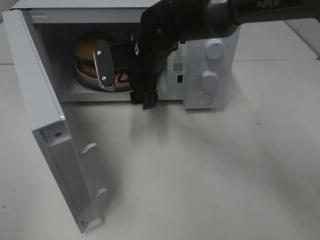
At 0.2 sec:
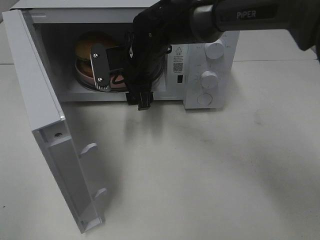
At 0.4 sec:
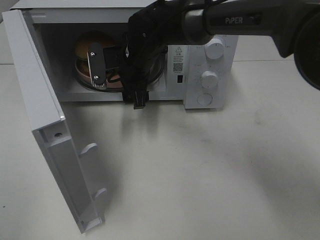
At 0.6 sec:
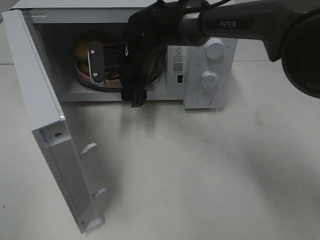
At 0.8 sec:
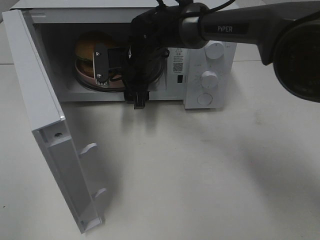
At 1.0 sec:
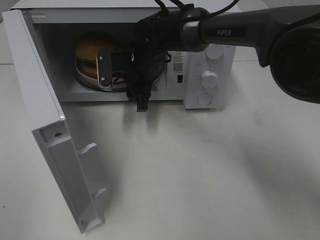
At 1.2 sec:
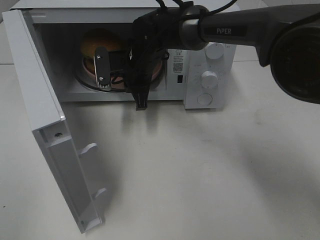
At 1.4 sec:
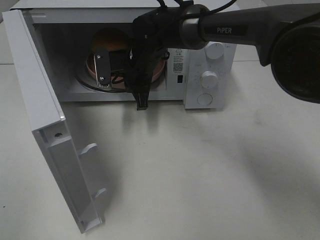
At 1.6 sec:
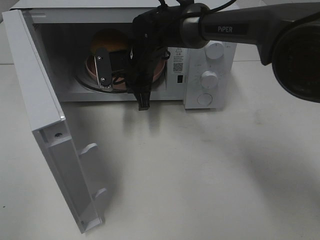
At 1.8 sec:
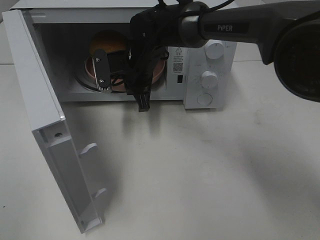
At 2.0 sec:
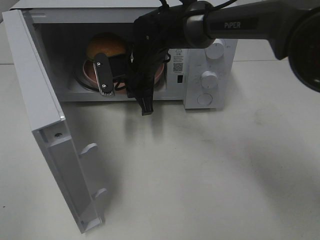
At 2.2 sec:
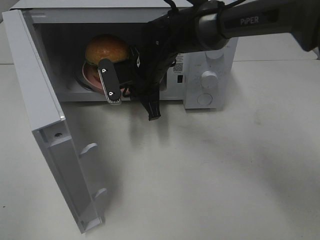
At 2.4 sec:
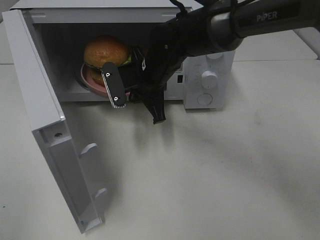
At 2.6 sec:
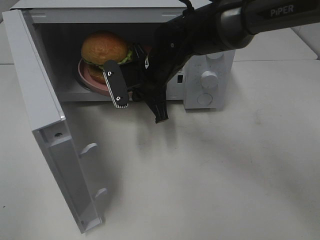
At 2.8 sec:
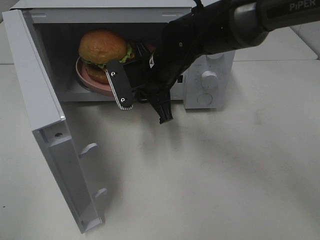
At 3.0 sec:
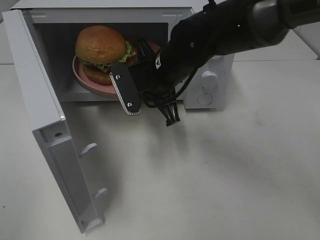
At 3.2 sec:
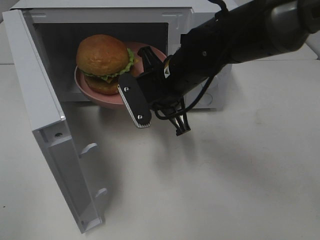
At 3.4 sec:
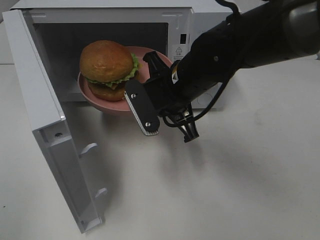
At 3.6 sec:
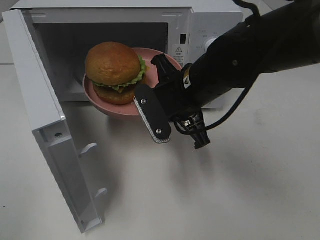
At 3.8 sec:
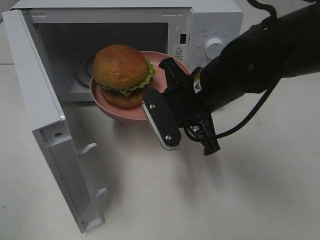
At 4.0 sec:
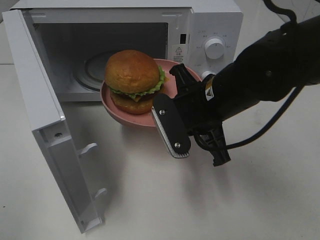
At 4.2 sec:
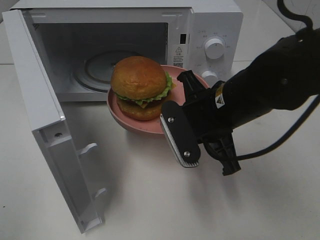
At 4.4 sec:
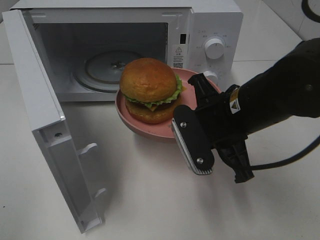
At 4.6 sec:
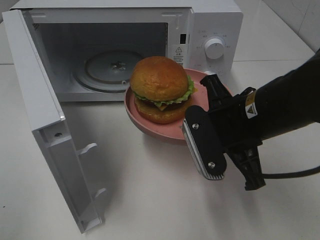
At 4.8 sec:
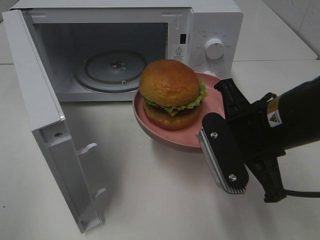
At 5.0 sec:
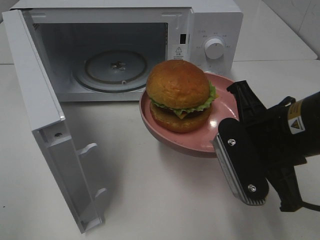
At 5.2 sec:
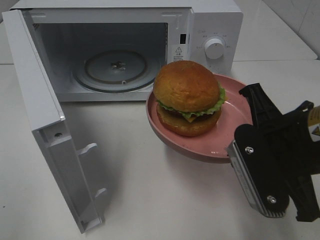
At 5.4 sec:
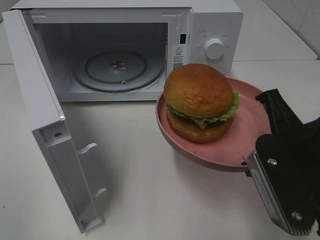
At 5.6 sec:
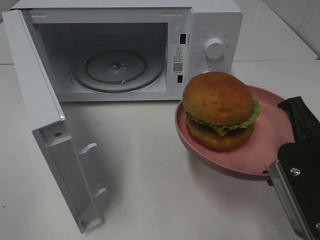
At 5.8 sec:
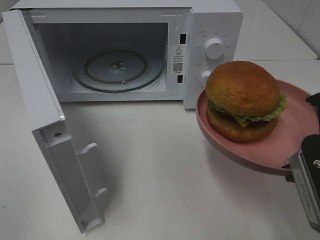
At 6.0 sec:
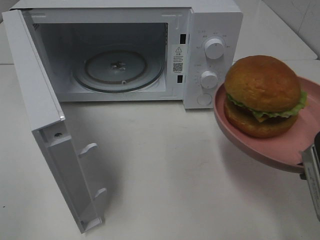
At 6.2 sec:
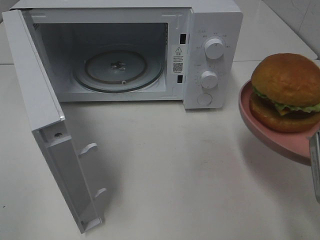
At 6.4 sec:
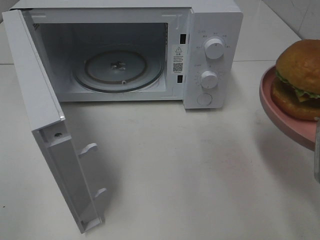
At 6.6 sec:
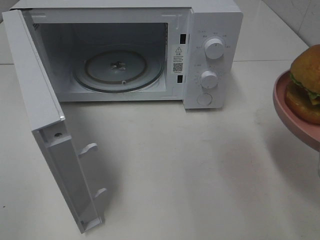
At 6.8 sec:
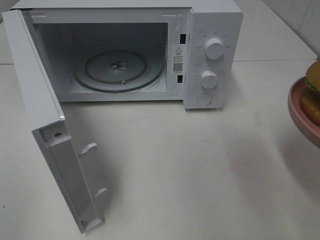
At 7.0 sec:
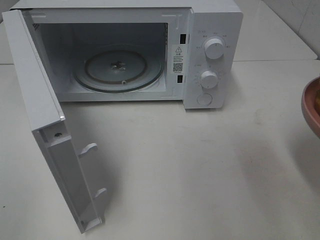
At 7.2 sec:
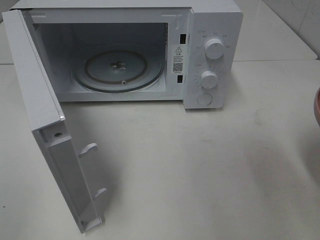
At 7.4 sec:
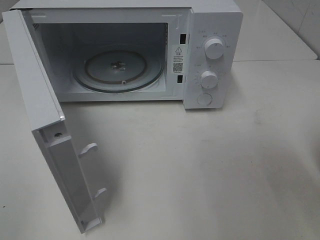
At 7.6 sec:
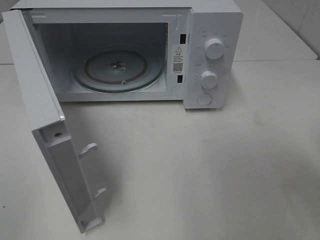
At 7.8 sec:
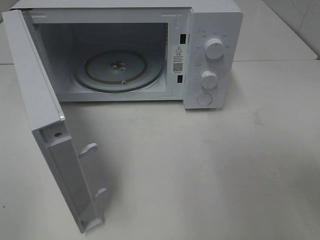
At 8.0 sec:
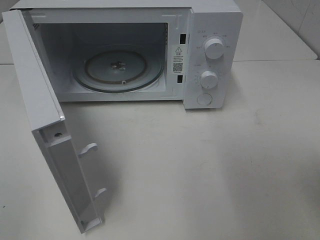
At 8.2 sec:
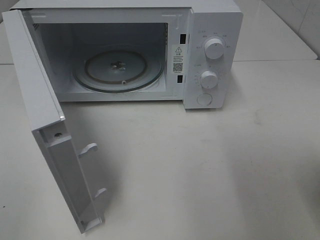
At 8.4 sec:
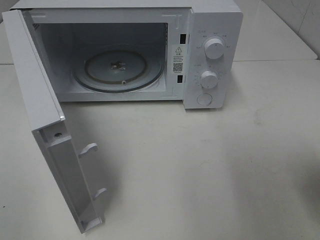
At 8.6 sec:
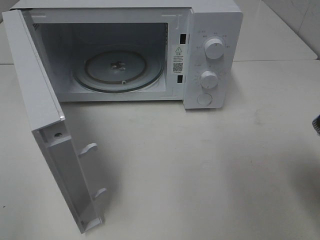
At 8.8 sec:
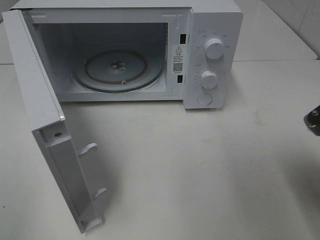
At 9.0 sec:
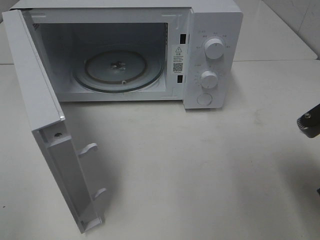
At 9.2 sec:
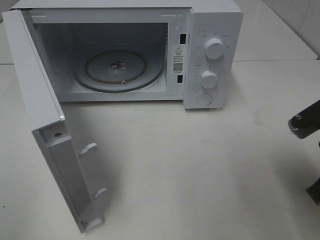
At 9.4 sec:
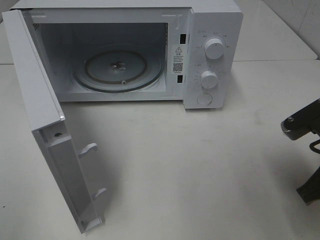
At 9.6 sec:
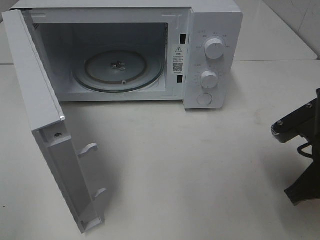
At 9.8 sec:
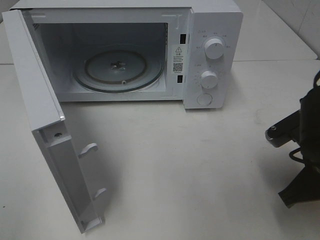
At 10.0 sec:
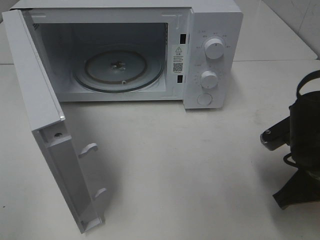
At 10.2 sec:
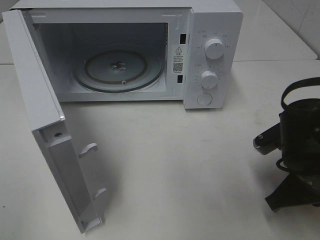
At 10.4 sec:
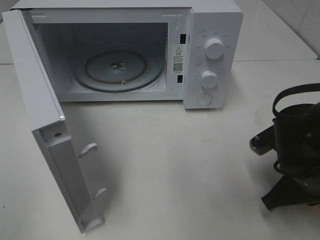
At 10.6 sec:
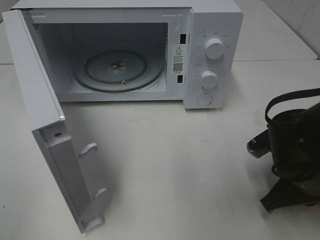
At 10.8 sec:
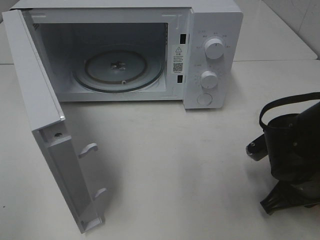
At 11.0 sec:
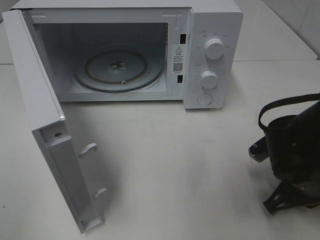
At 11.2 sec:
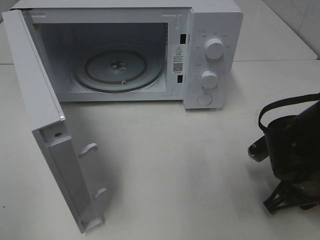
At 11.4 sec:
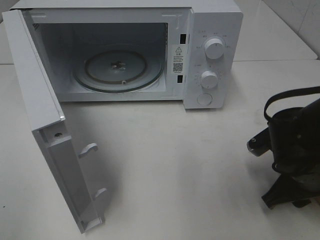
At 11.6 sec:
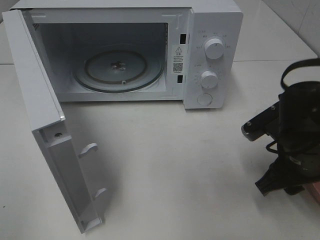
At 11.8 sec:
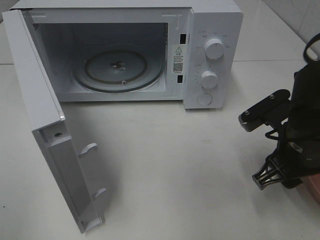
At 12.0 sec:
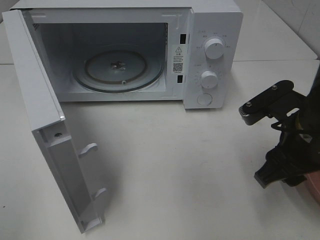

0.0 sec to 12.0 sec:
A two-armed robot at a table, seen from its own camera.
Task of the whole recording: Heat the burger.
Step, 1.4 sec to 11.4 sec: Right hand: place the plate on the table.
0.0 sec to 1.6 sec: The right gripper shifts by some 5 cm, and closes.
1.6 sec to 3.0 sec: The right gripper goes roughly 10 cm backward.
3.0 sec to 4.4 sec: The right gripper travels backward and to the right by approximately 15 cm.
4.4 sec to 6.0 sec: The right gripper travels backward and to the right by about 15 cm.
7.6 sec to 9.0 sec: The right gripper ends up approximately 5 cm from where it was.
9.0 sec to 10.4 sec: The right gripper goes roughly 10 cm downward.
10.4 sec to 12.0 sec: The right gripper moves upward, roughly 5 cm, and opens.

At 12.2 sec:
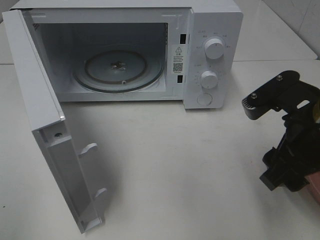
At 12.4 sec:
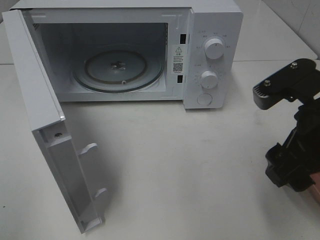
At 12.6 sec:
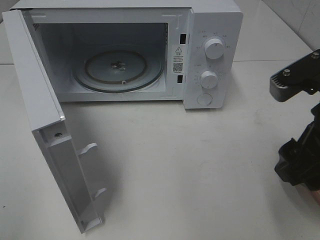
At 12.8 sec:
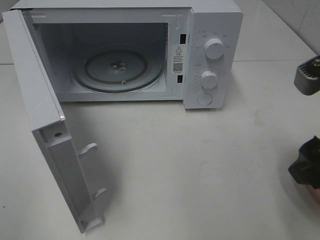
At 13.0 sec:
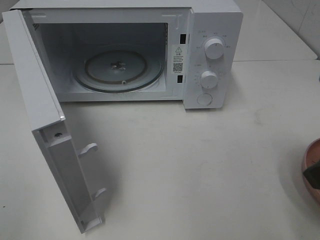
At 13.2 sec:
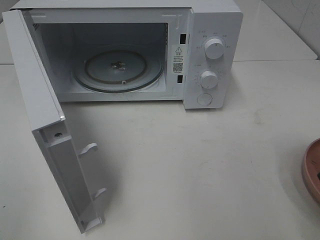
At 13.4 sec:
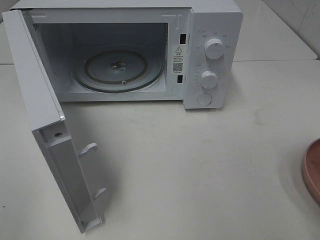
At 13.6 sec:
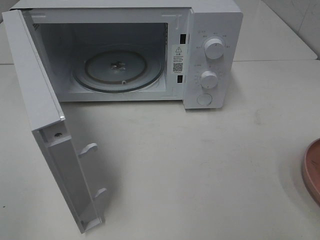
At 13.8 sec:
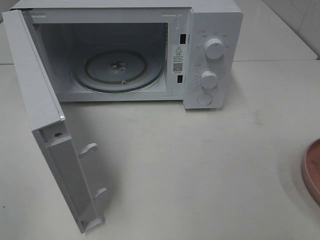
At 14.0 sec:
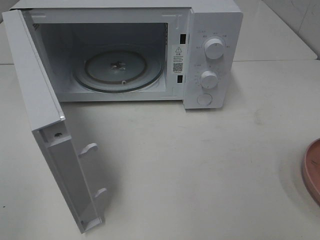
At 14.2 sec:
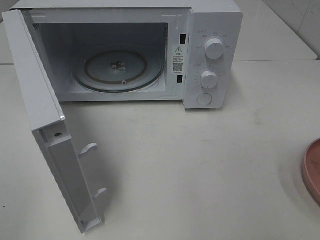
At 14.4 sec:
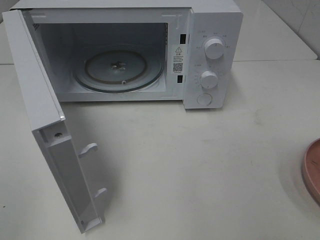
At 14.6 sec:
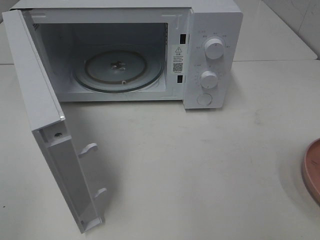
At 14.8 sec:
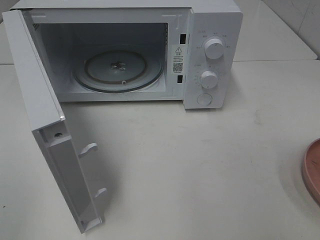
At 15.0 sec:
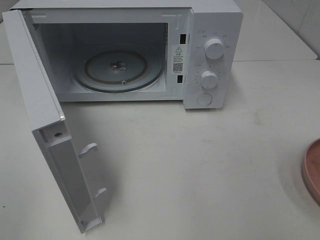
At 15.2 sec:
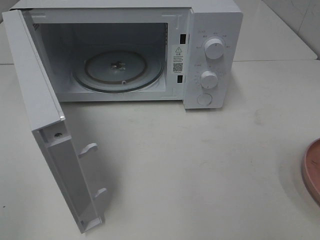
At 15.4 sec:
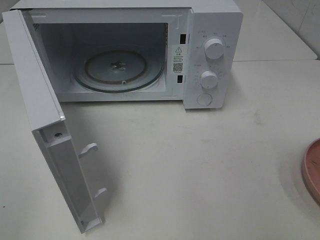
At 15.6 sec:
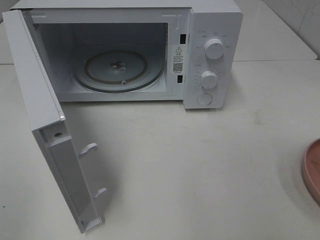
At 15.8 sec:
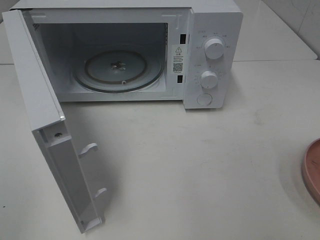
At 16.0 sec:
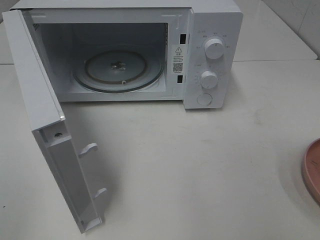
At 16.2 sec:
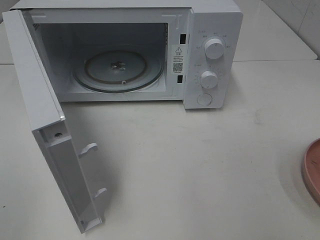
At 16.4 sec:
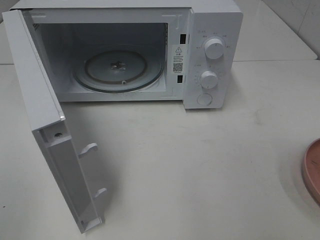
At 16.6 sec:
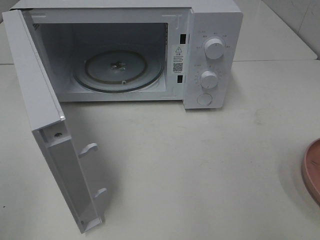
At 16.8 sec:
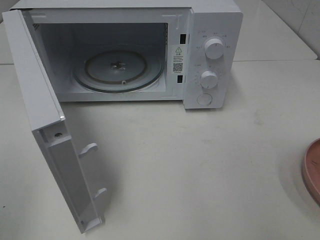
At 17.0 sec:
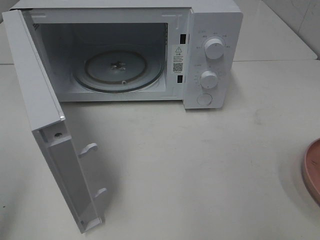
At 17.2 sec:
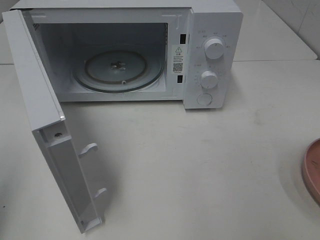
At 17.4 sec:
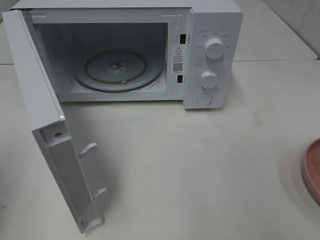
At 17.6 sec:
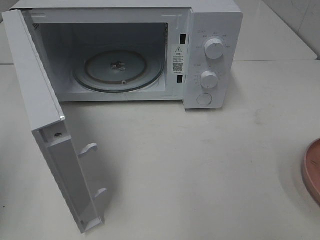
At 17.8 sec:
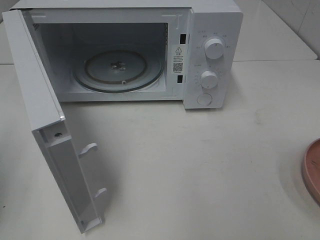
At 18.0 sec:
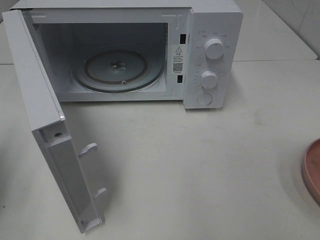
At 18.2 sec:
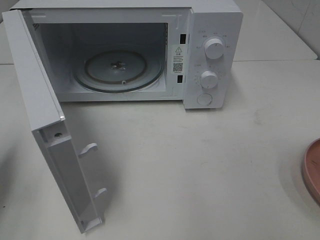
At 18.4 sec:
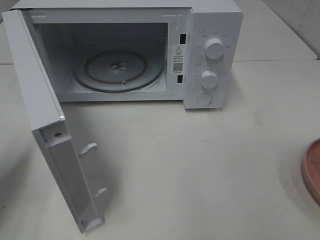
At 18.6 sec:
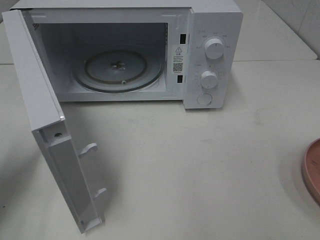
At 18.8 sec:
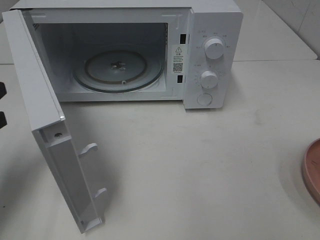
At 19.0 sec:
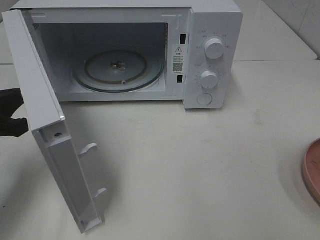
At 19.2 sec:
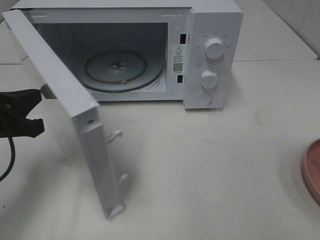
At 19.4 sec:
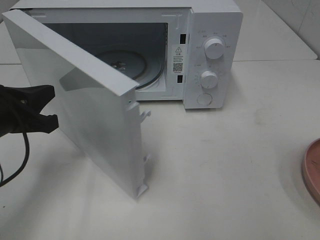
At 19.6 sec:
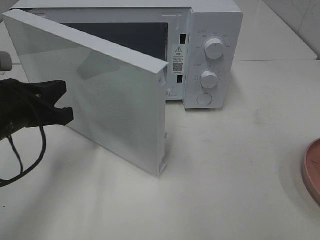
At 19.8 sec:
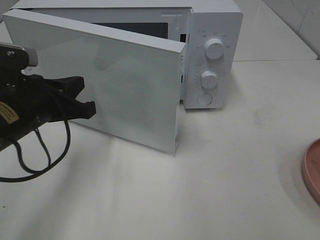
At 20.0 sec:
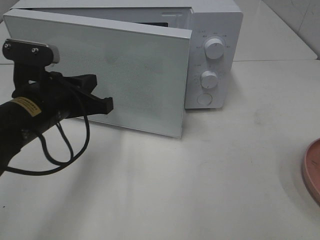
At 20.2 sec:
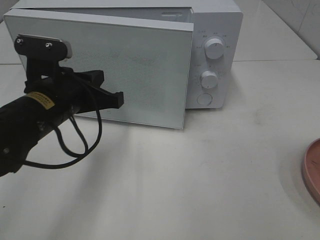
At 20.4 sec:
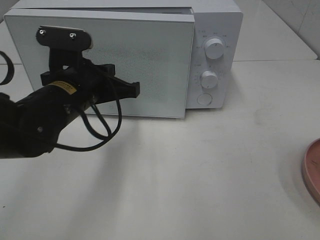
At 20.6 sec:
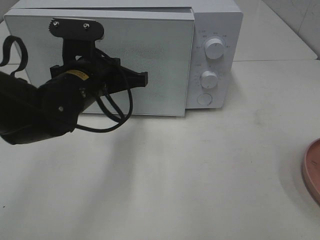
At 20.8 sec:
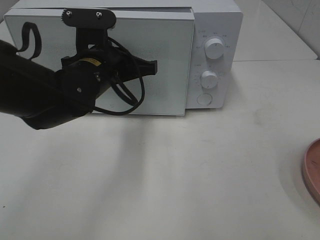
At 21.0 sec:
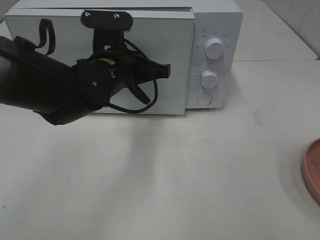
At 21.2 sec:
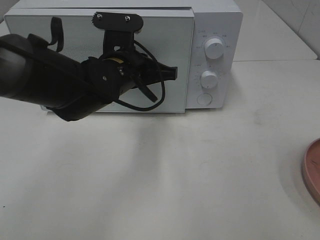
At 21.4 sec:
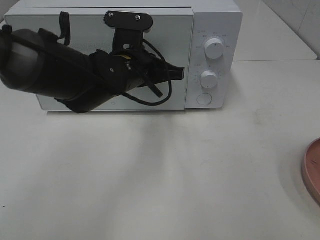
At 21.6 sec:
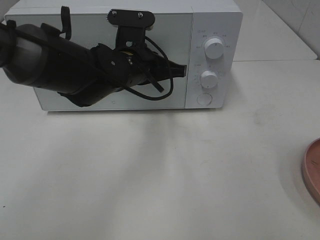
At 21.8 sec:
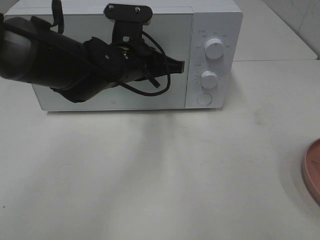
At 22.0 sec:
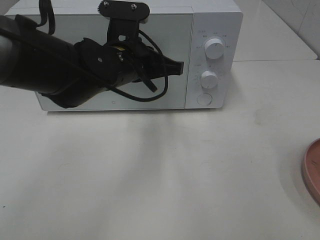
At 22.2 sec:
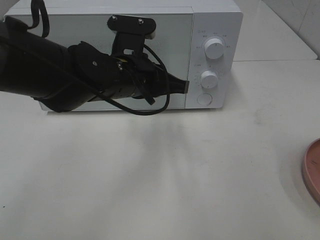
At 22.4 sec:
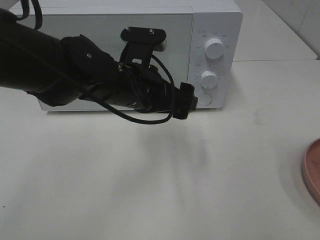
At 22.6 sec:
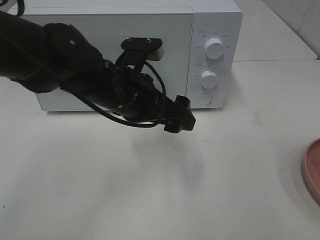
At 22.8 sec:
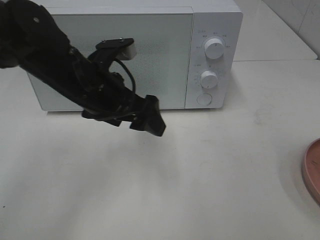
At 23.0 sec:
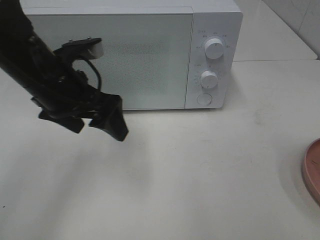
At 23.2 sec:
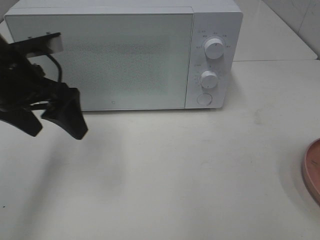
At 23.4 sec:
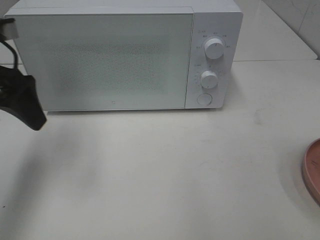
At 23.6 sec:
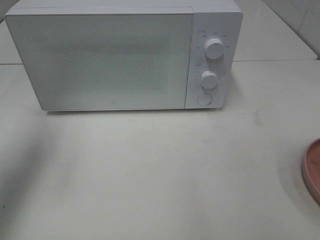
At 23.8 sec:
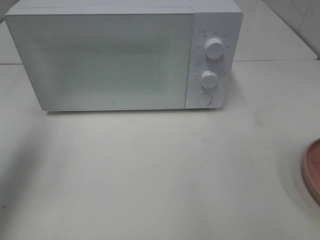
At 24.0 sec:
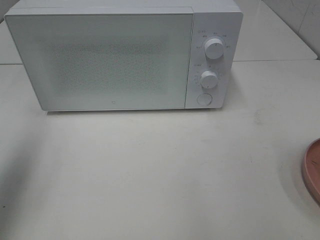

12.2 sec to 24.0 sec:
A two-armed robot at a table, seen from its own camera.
Task of the whole recording: Heat the burger.
Step, 12.2 sec to 22.2 sec: Left hand: close the microwave door.
12.2 sec to 13.6 sec: The right gripper is displaced backward, to the right and upward by roughly 15 cm.
16.6 sec to 18.2 sec: The left gripper goes some 20 cm forward and downward, and closes up.
18.2 sec to 19.6 sec: The left gripper heads to the right, covering some 10 cm.
19.6 sec to 21.0 sec: The left gripper heads to the right and forward, covering roughly 15 cm.
21.0 sec to 22.6 sec: The left gripper opens.
22.6 sec to 24.0 sec: The left gripper moves to the left and upward, some 30 cm.
